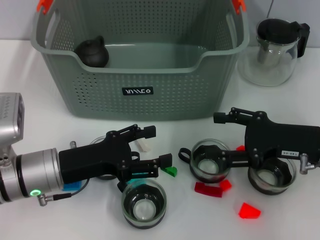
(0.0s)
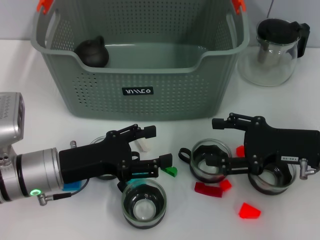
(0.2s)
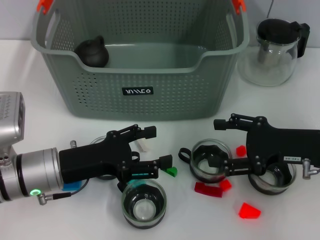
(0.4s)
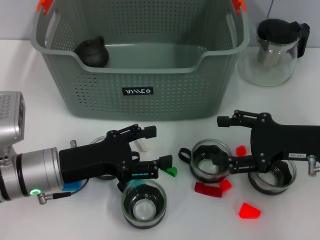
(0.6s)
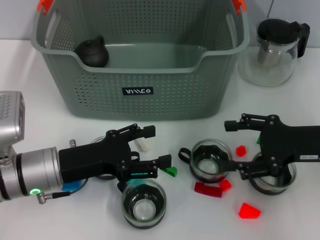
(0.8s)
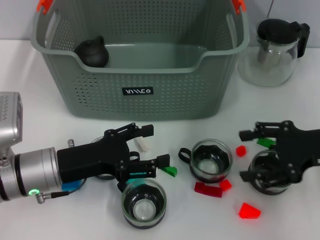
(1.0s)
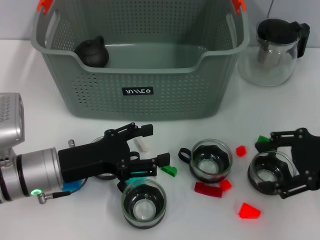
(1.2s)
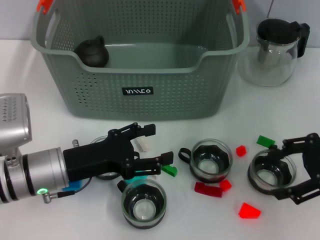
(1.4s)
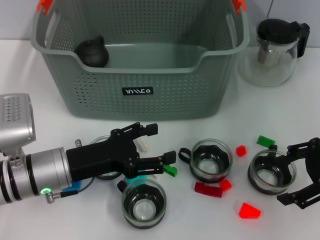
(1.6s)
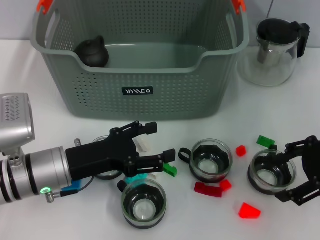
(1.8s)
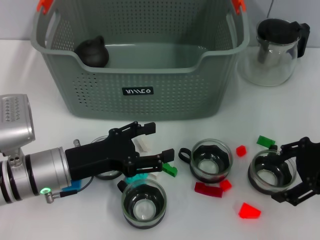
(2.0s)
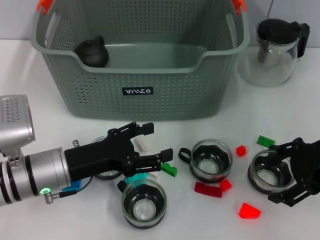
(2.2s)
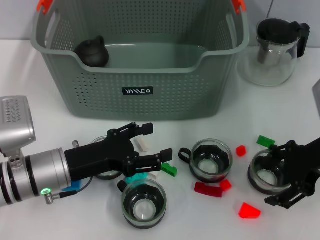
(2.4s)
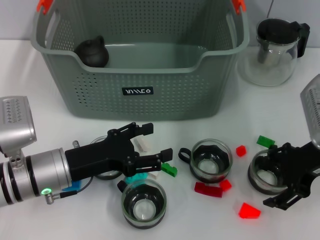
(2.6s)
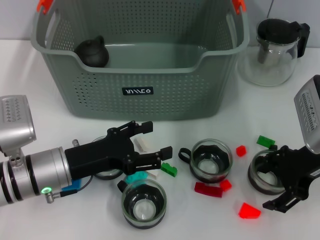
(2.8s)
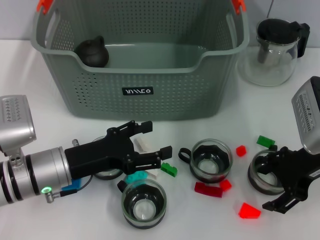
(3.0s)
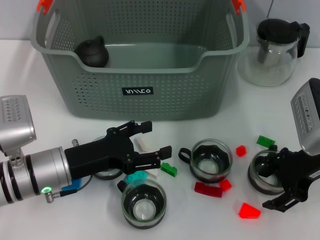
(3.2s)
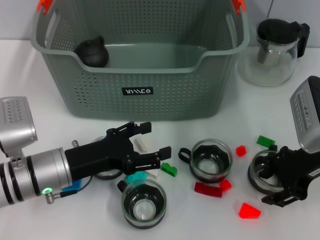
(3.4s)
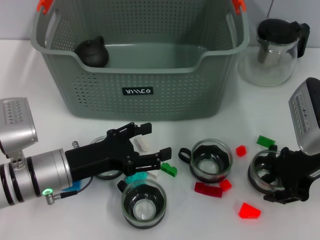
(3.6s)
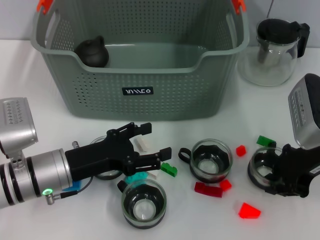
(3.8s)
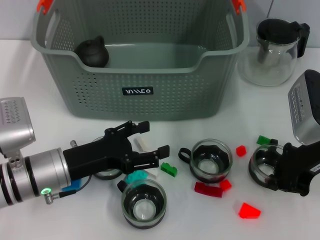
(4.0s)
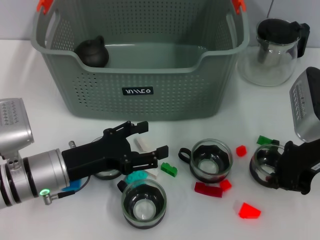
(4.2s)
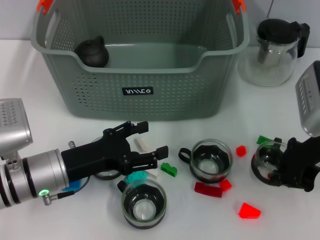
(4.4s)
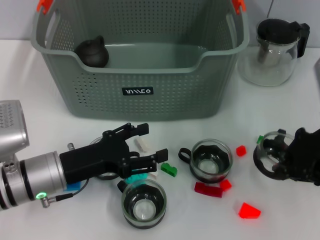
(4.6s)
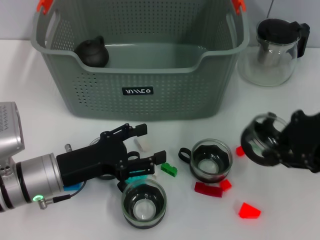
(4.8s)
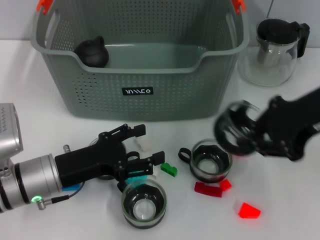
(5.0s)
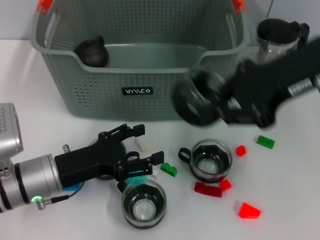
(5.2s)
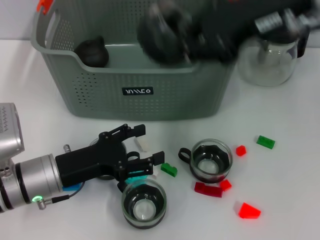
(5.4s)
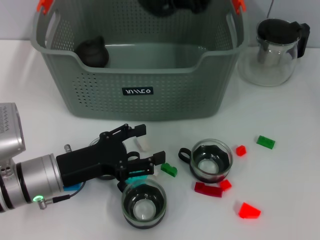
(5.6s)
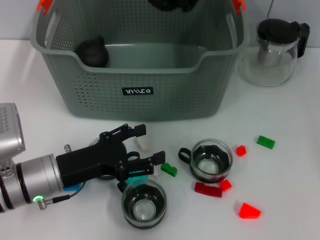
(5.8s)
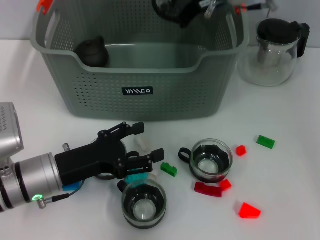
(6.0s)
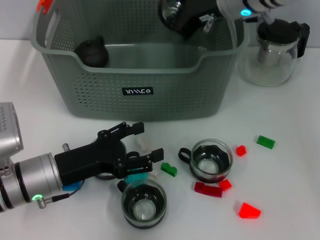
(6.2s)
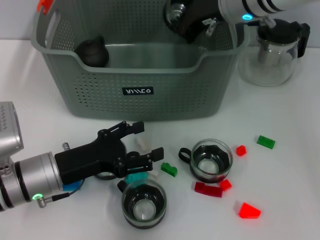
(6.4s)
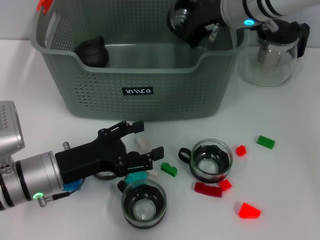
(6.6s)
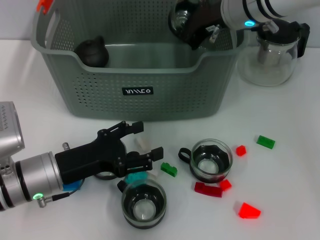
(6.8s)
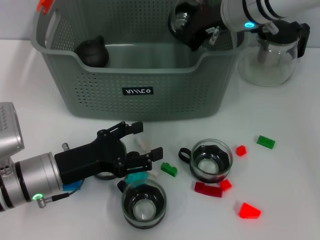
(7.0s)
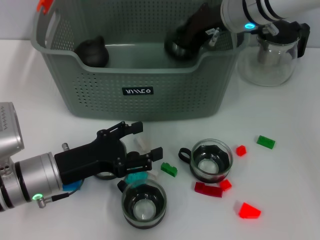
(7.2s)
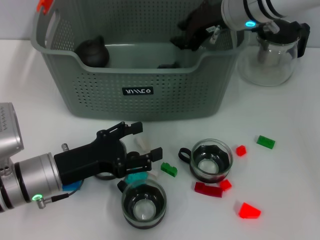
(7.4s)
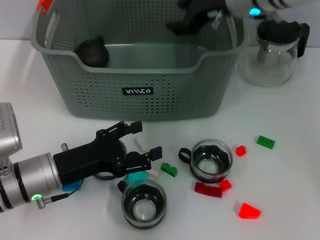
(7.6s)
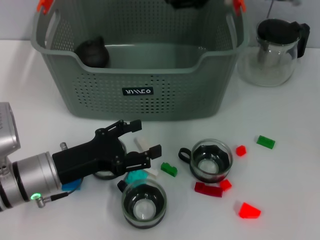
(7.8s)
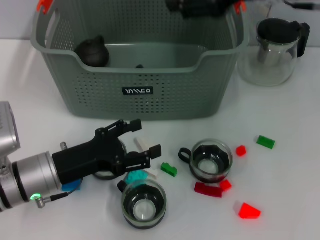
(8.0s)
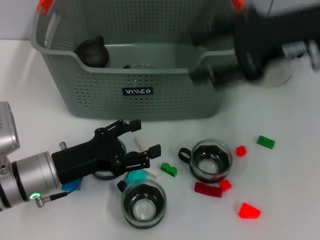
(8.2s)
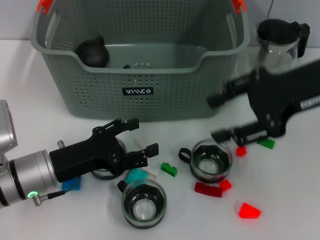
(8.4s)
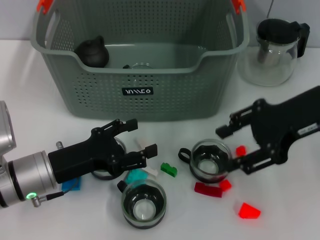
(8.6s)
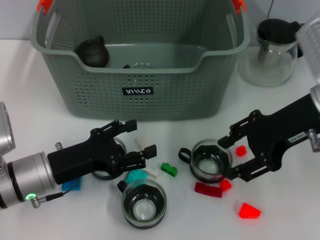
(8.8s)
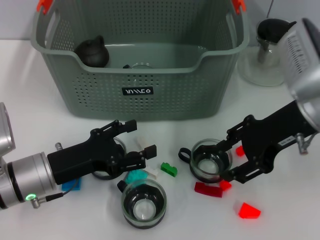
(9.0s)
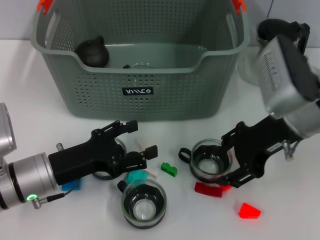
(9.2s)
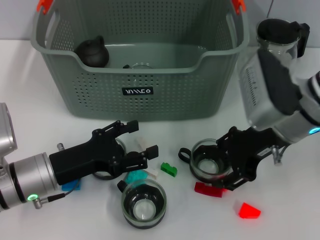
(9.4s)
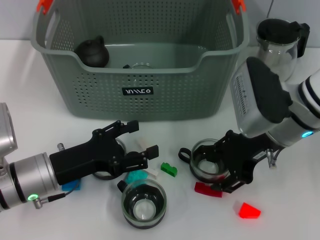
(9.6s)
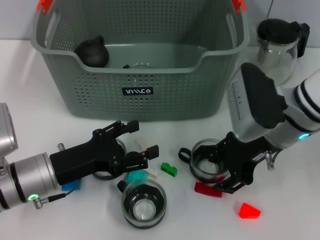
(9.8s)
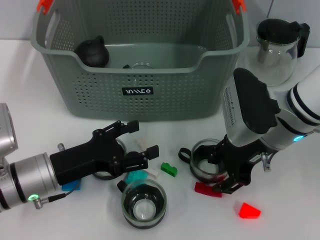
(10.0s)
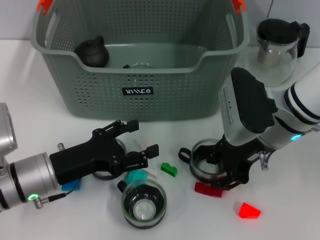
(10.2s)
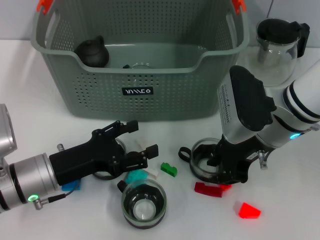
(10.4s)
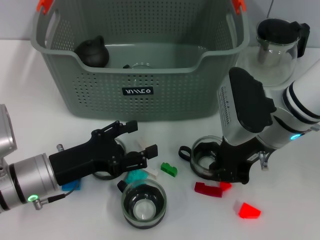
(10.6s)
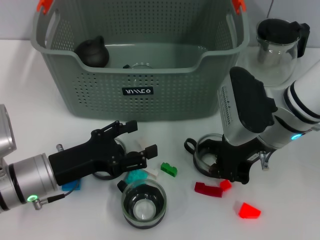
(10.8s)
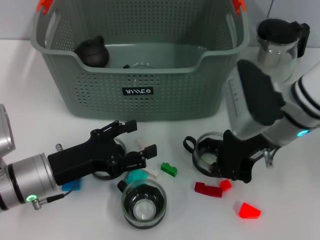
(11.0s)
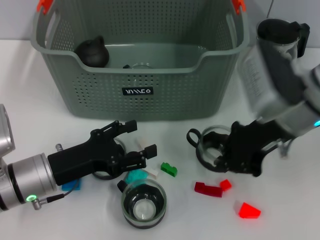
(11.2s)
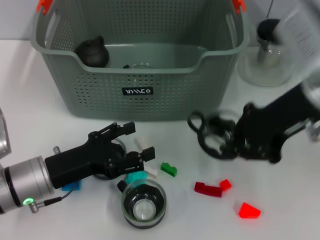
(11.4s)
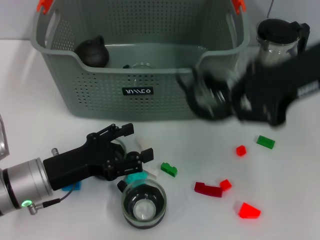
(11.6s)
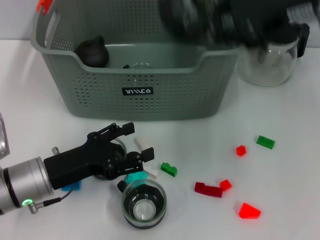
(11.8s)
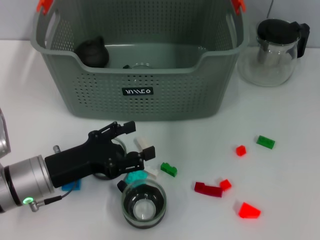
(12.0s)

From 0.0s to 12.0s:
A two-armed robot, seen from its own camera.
Task of the whole recording: pick up the teacup on the table and place it into the storage bin, pick up the block on the table and place it into the storage bin.
Step, from 0.0s to 3.8s: Grasp the cup with right gripper.
Step, from 4.2s to 7.4s: Place the cup in the storage box with right gripper.
Step, from 7.6s to 10.8s: Grasp the cup with right gripper.
From 0.0s to 1.6s: The right gripper shifts approximately 5 cm upward.
From 1.6s to 3.0s: The right gripper heads to the left, covering some 5 cm.
From 3.0s to 4.4s: The right gripper closes.
From 4.4s to 6.0s: The right gripper heads to the left, forward and upward, covering roughly 20 cm.
From 6.0s to 7.6s: The right gripper opens.
From 7.6s to 9.0s: The right gripper heads backward and to the right, covering some 15 cm.
From 9.0s to 10.4s: The right gripper moves about 5 cm.
From 10.4s to 12.0s: The right gripper travels upward by approximately 20 cm, and closes its fingers.

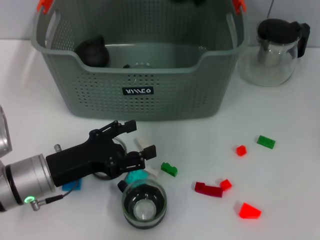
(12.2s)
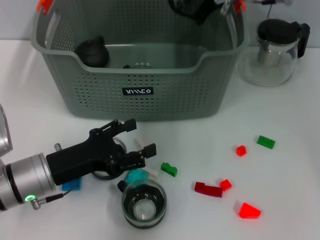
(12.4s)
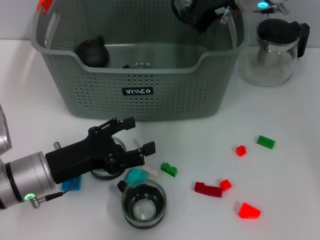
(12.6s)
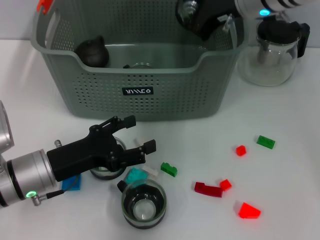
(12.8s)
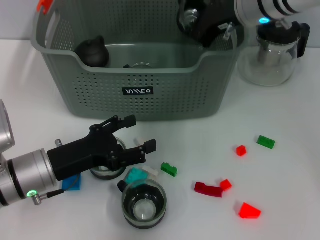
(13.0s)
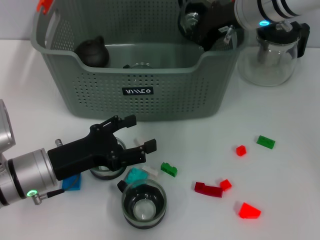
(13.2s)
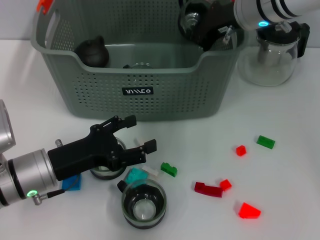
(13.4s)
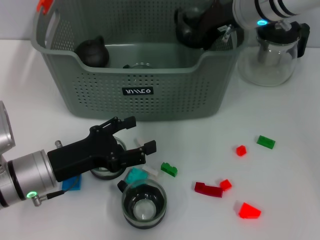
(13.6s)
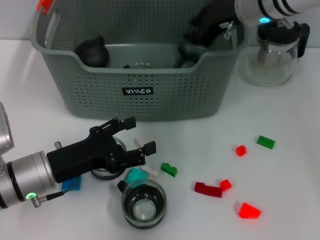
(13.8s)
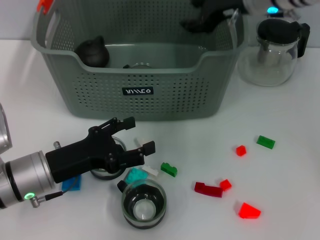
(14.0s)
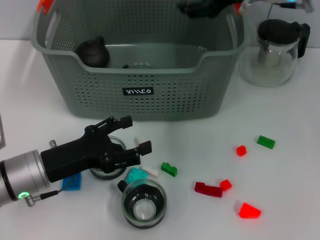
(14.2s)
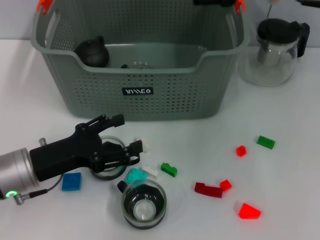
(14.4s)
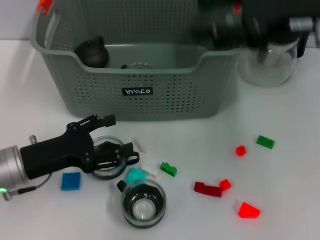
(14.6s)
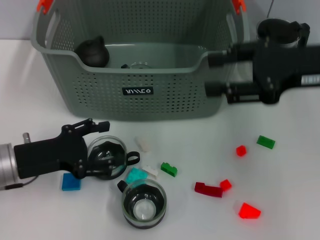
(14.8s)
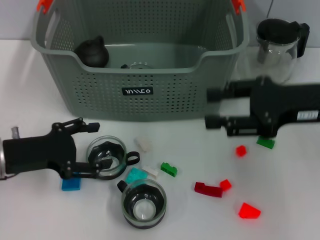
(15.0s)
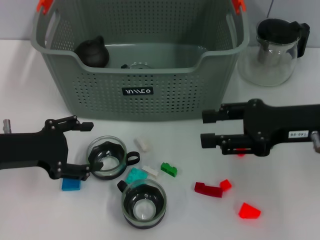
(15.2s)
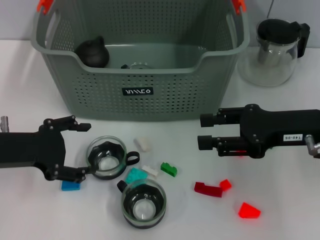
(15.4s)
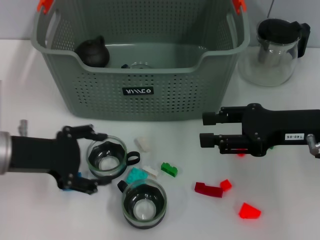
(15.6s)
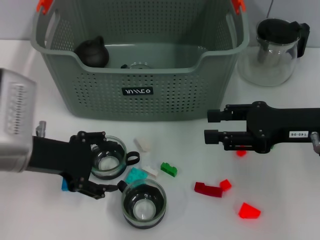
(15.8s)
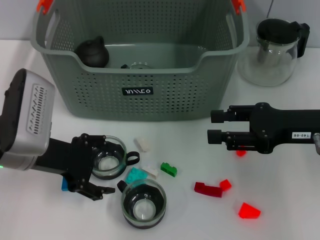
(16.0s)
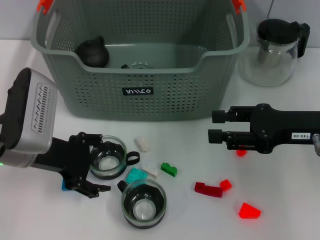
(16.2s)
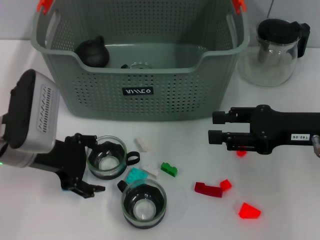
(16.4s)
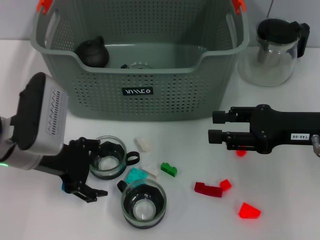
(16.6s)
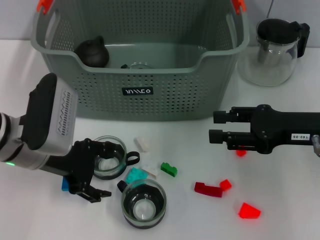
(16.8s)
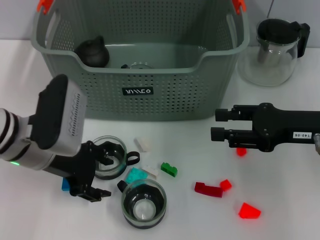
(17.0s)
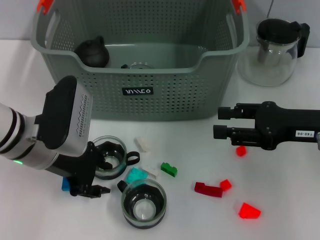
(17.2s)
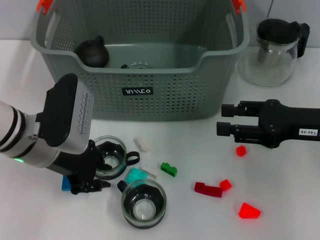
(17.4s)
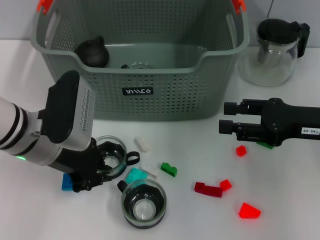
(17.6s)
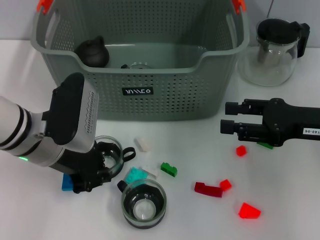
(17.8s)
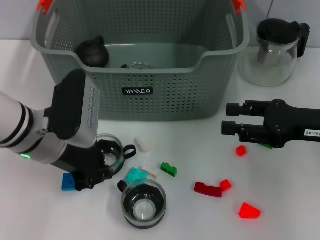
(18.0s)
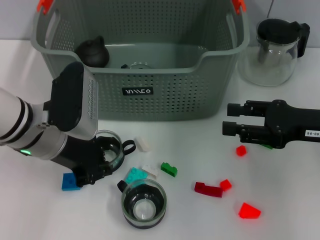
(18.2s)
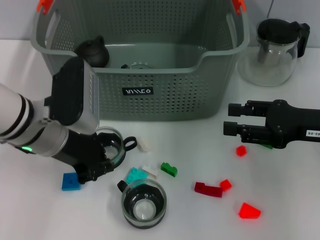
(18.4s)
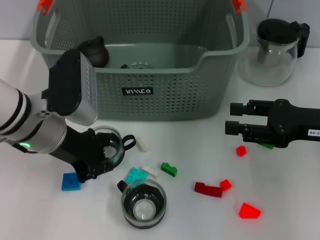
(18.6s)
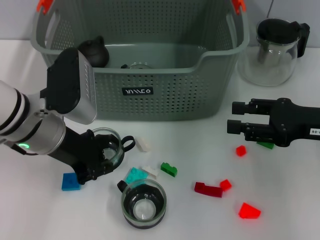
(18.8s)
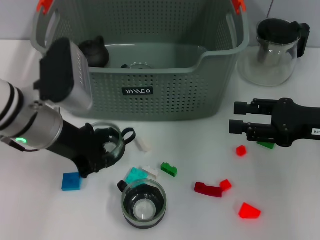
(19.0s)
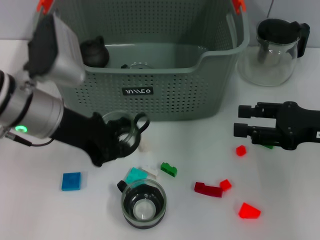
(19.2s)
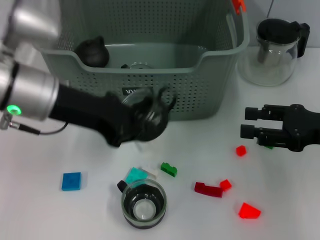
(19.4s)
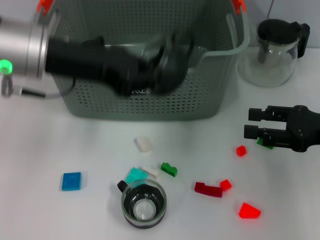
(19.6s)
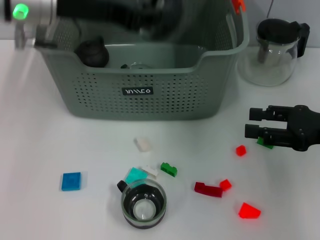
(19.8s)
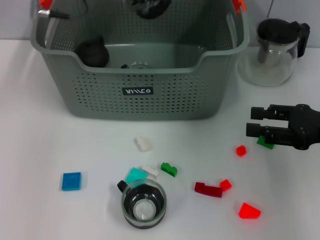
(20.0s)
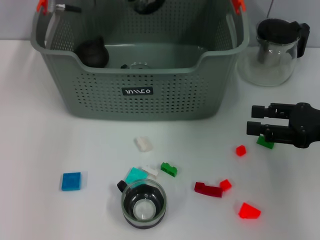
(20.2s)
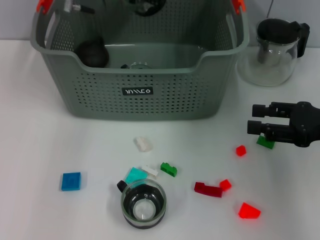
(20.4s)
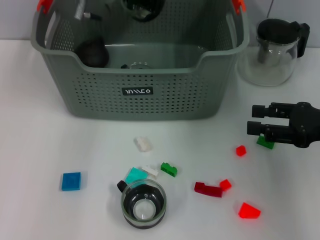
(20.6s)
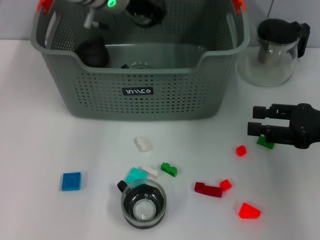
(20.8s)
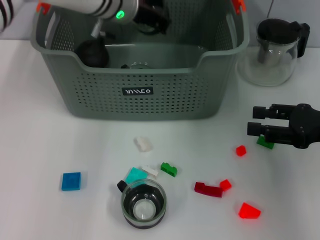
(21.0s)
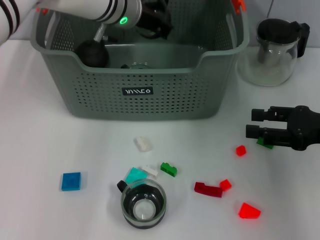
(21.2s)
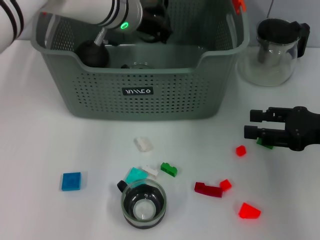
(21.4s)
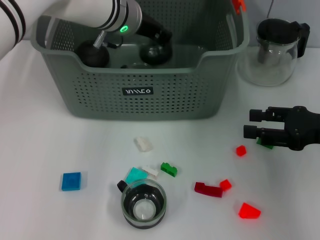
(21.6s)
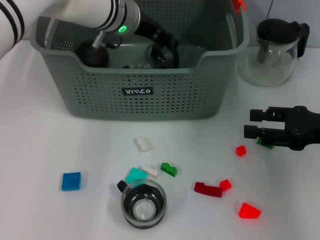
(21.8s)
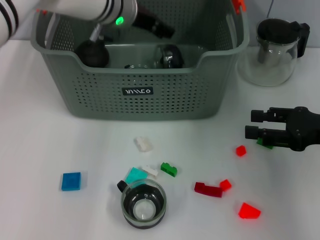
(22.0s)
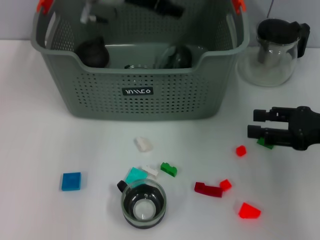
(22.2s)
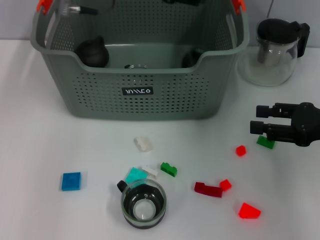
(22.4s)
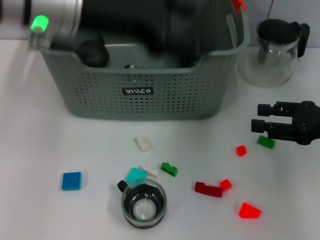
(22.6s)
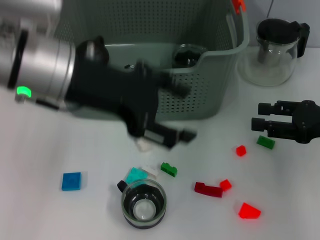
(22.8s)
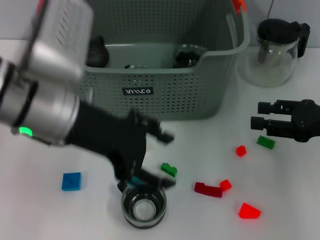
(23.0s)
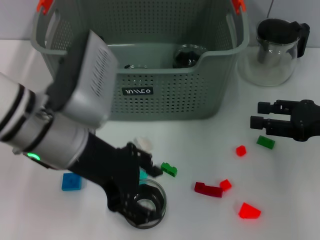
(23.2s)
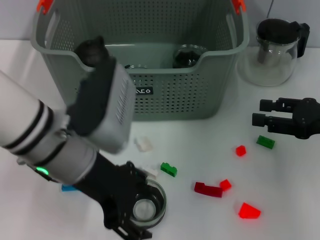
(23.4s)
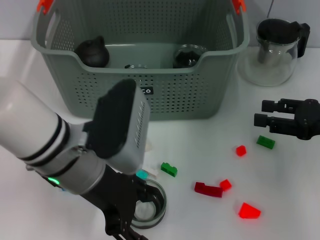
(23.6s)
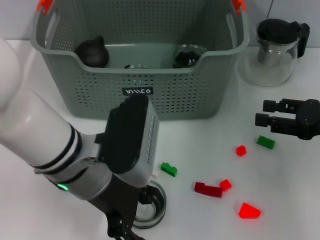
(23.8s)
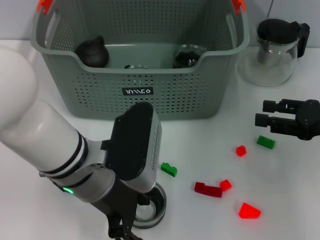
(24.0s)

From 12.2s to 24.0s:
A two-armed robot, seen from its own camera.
Task of the whole recording: pick up the teacup on the table and place it into the storage bin, pick up the block on the table and place it into the storage bin.
Step, from 12.2s to 13.8s: Place the cup in the storage box with right gripper.
Step, from 14.0s to 17.6s: Grasp the cup with left gripper.
Step, from 17.8s to 21.8s: Place the cup in the storage box with left gripper.
From 12.2s to 13.6s: The right gripper heads downward, covering about 5 cm.
From 13.6s to 15.2s: The left gripper moves to the left and upward, some 10 cm. Meanwhile the right gripper goes approximately 20 cm backward and to the right, and opens up.
From 15.2s to 16.6s: The left gripper is displaced to the right by approximately 5 cm.
From 16.6s to 18.2s: The left gripper closes up.
From 18.2s to 19.6s: The left gripper travels upward by about 10 cm.
From 19.6s to 21.0s: The left gripper moves forward and to the right, approximately 15 cm.
From 21.0s to 22.6s: The left gripper goes some 15 cm backward, upward and to the left, and opens up.
From 22.6s to 24.0s: The left gripper shifts some 15 cm downward and backward.
